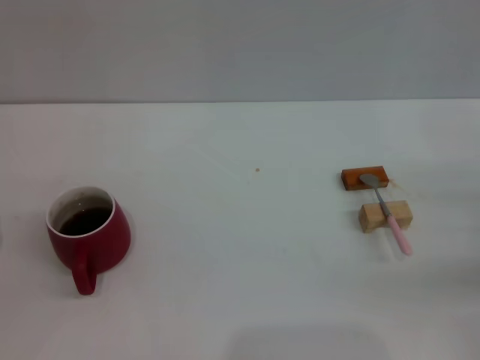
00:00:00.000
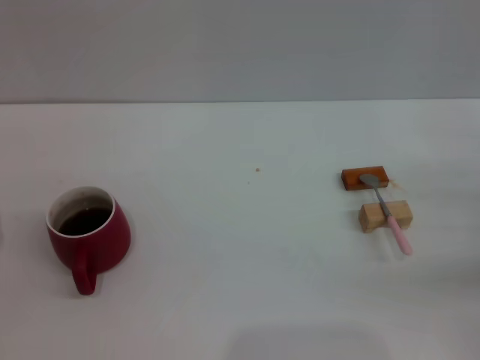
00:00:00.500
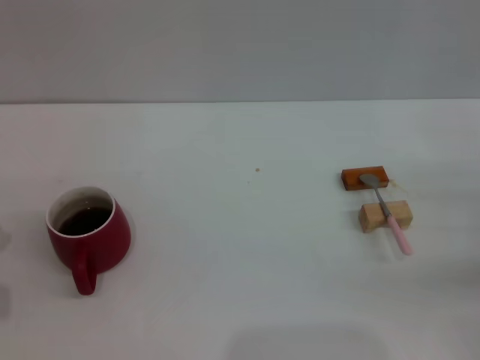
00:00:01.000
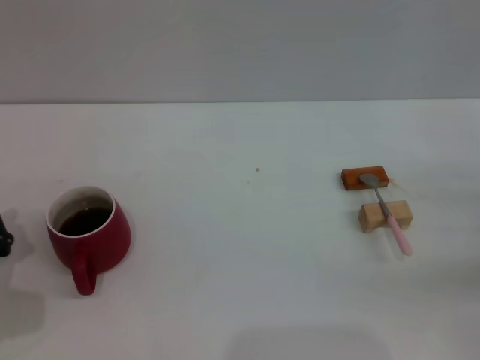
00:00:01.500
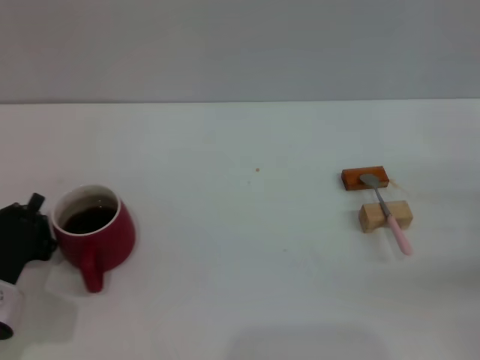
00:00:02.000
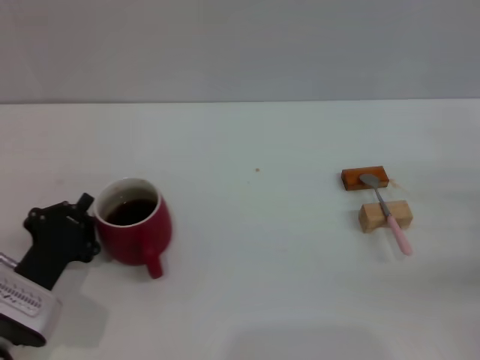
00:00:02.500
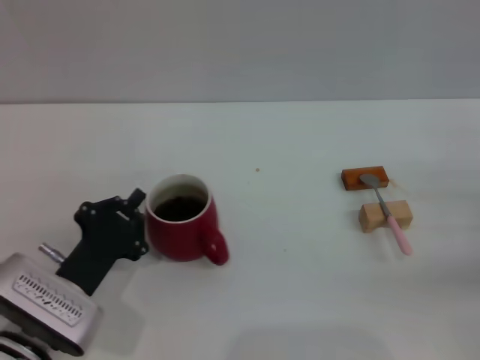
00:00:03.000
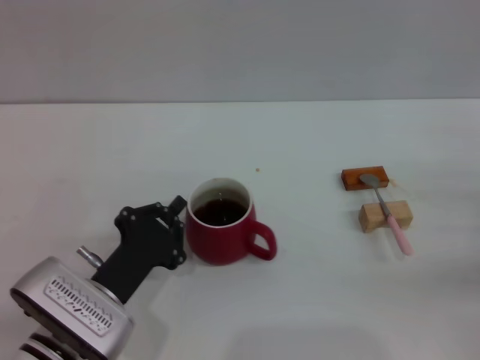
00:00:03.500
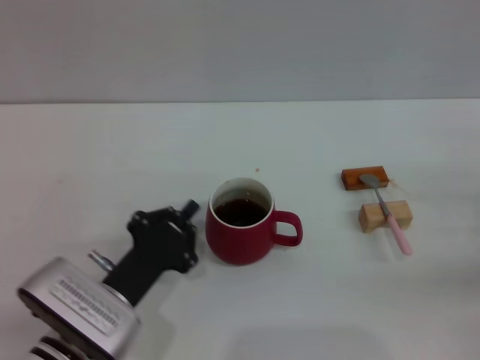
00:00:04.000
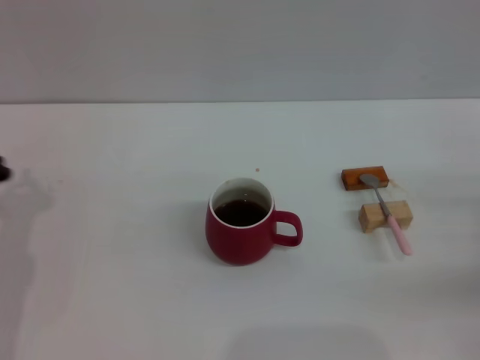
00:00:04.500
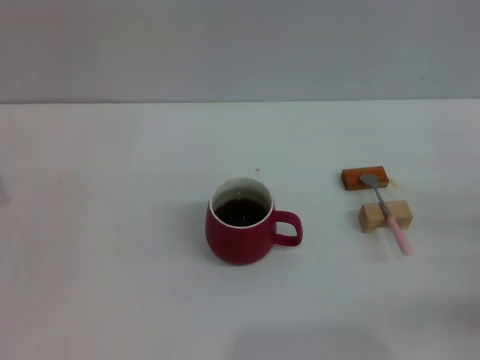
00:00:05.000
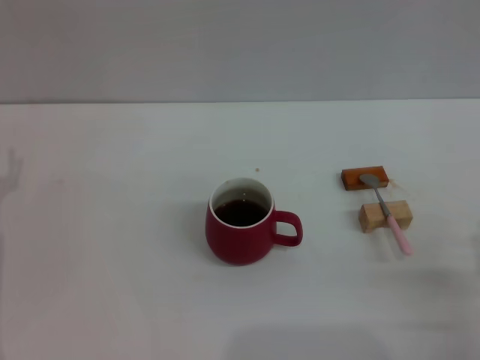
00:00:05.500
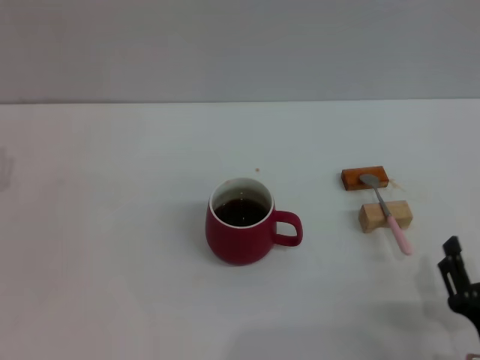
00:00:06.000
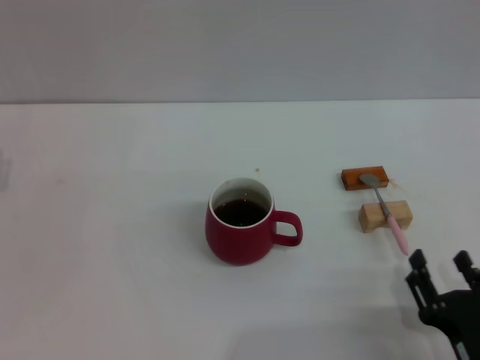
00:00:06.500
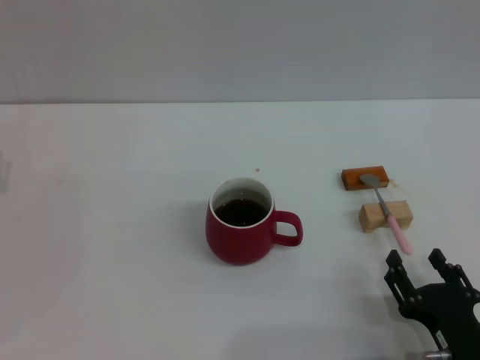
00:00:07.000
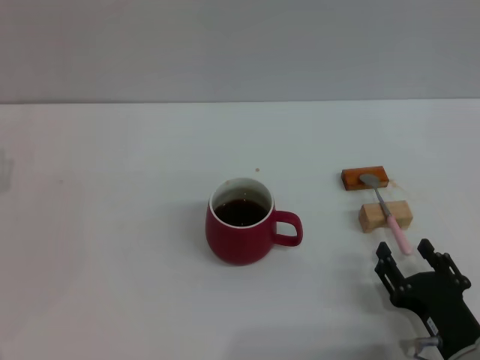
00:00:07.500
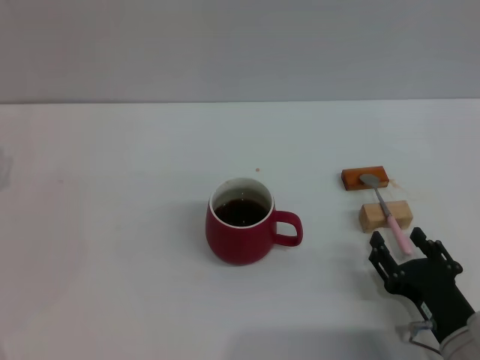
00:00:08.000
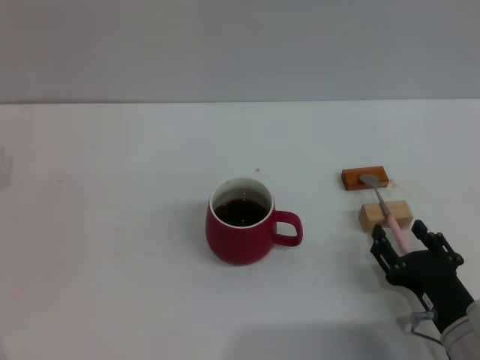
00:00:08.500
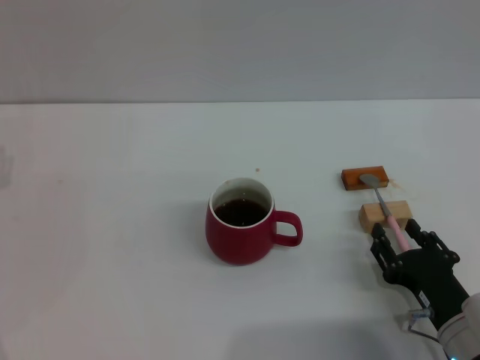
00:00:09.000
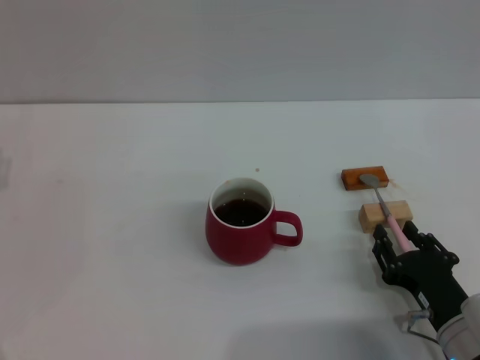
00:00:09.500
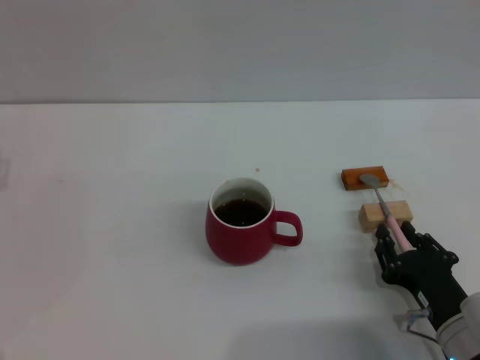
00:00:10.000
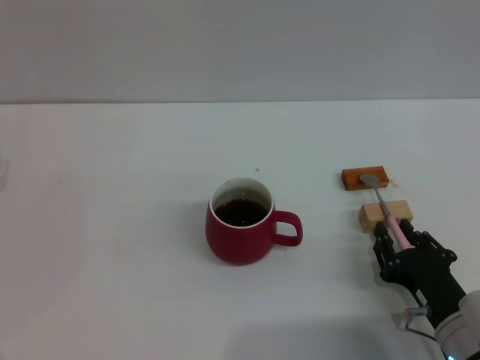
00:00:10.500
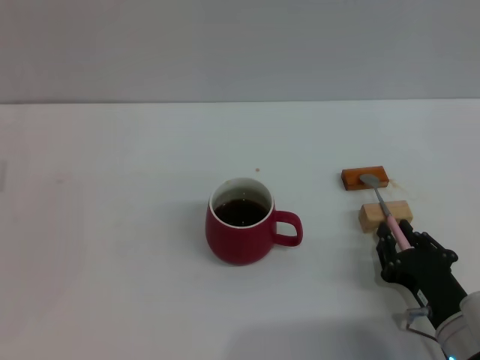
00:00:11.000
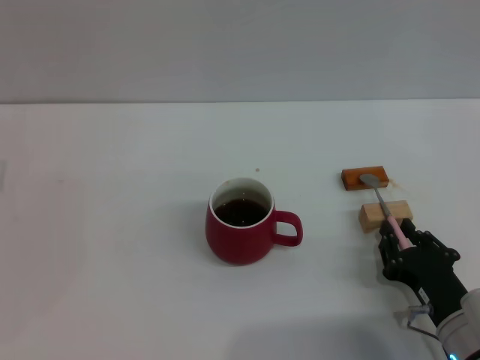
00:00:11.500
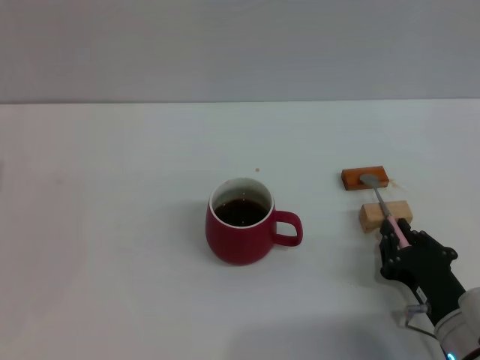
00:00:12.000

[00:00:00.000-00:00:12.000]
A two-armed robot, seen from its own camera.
Task of the whole recording: Move the red cup to the center, lift the pink spoon, stir it three times in the cup, and put the spoon into the cup.
Step, 00:00:00.000 to 00:00:04.000: Move the cup with coffee to the center of view with the left gripper.
00:00:00.000 to 00:00:02.000: The left gripper changes place by some 5 cm, and closes up.
00:00:02.000 to 00:00:04.000: The left gripper travels to the right by approximately 10 cm.
00:00:04.000 to 00:00:06.000: The right gripper shifts roughly 20 cm backward and to the left. The left gripper is displaced to the left and forward by roughly 20 cm, and opens up.
00:00:06.000 to 00:00:08.000: The right gripper goes some 5 cm forward.
00:00:08.000 to 00:00:10.000: The right gripper closes its fingers.
00:00:10.000 to 00:00:12.000: The two grippers keep their place.

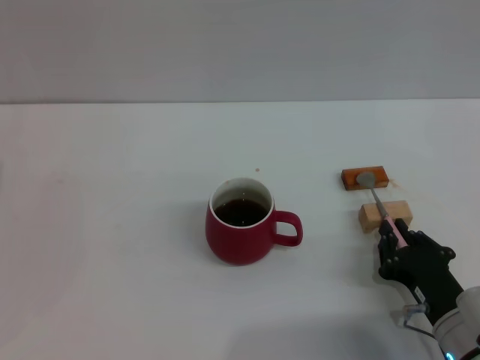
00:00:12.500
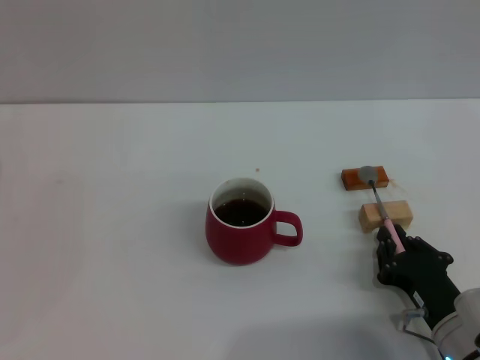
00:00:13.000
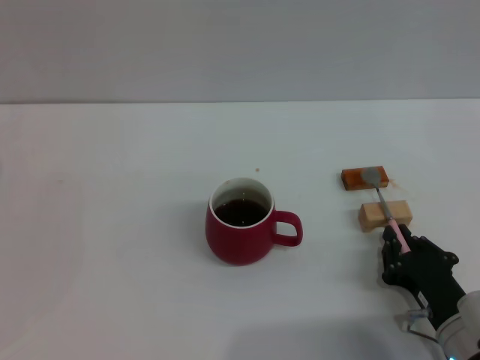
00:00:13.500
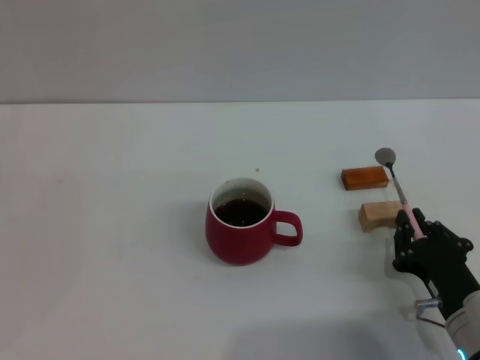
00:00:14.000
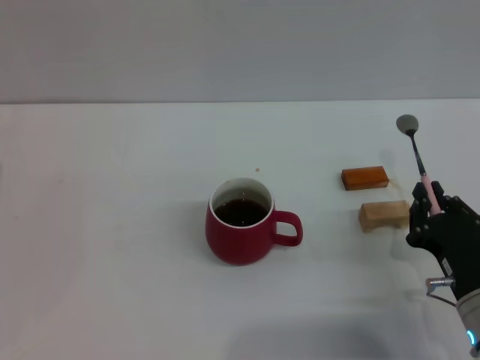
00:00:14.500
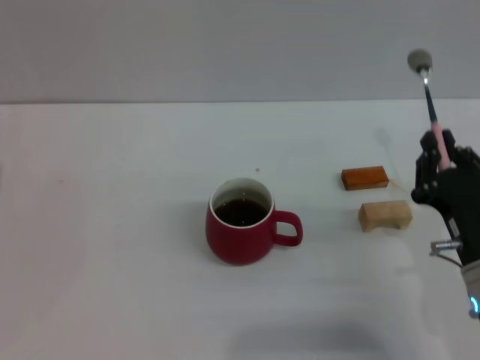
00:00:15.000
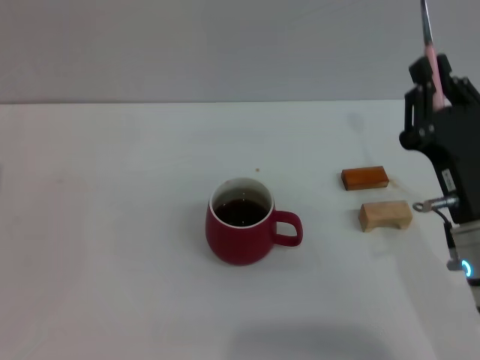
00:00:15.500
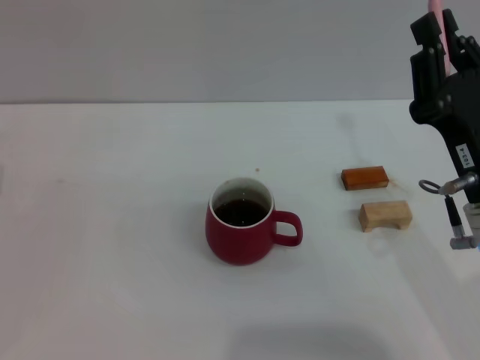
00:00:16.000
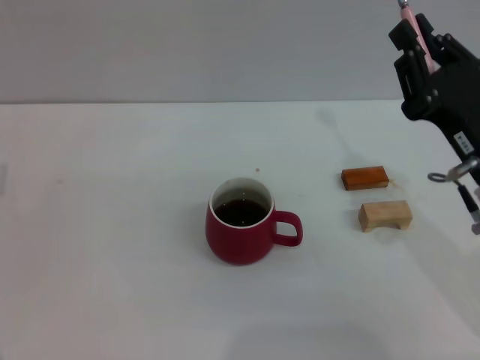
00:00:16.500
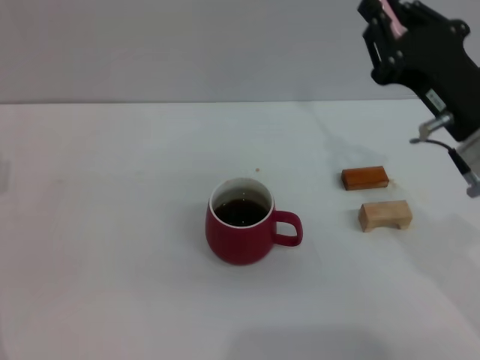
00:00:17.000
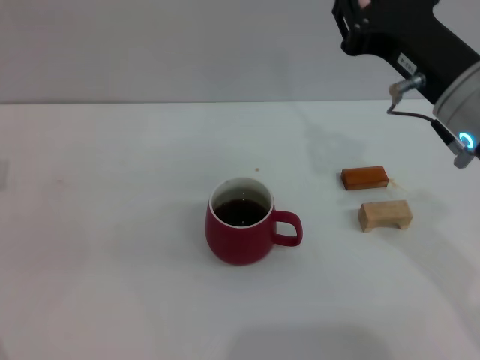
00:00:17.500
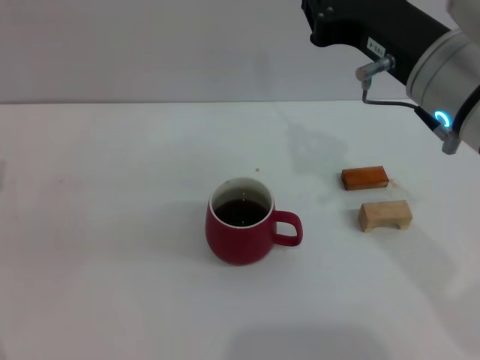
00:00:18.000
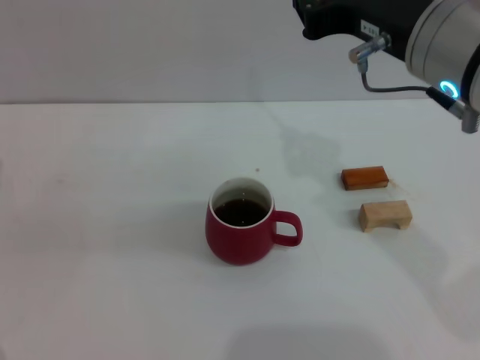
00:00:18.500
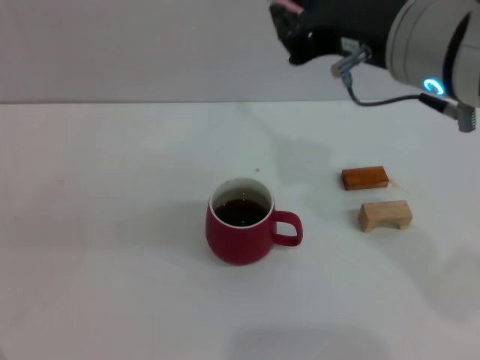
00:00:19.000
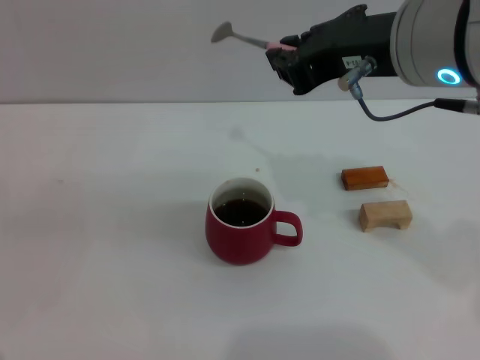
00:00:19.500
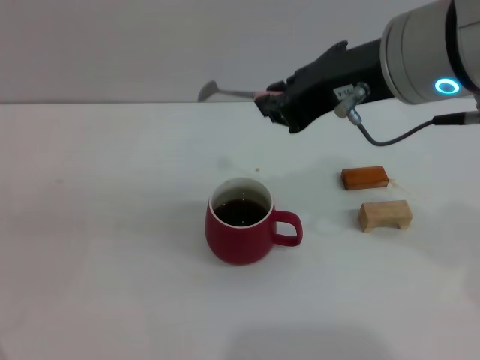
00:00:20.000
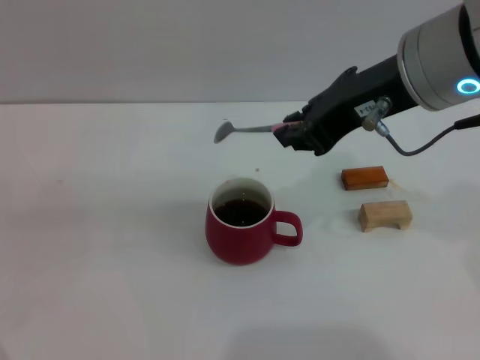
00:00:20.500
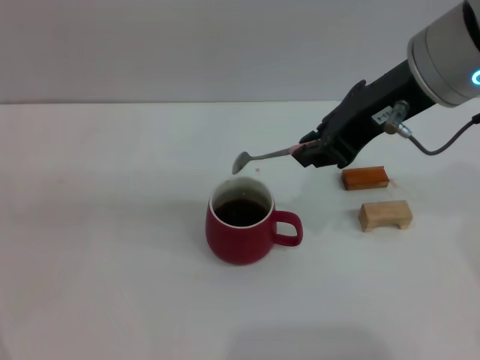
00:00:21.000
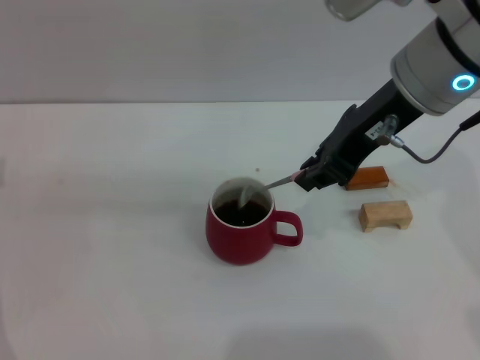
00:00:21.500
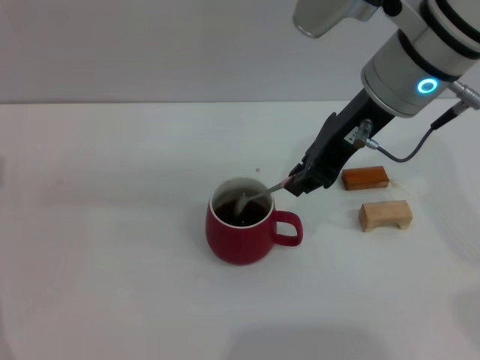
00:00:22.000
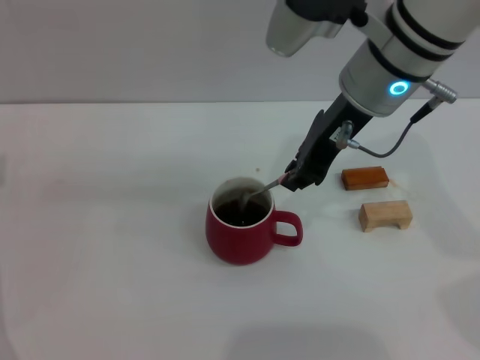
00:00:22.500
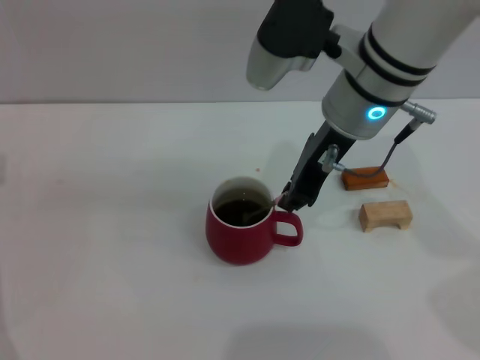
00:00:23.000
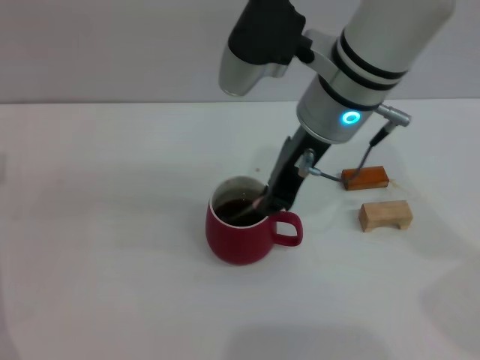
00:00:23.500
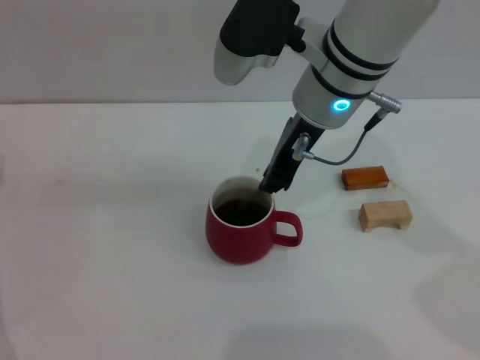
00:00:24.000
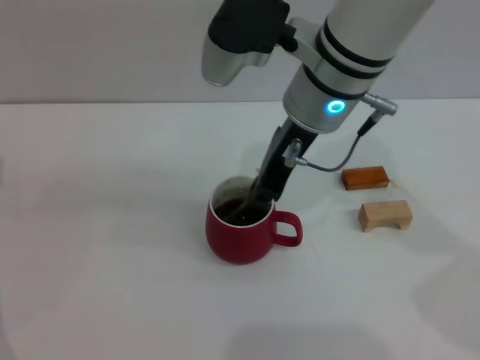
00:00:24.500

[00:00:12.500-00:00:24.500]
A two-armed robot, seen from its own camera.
Task of the whole recording: Move the red cup to the center, lift the pink spoon, stir it three times in the cup, and put the spoon into the cup.
Step, 00:00:12.500 to 00:00:15.500: Pick up the spoon with the right gripper.
00:00:12.500 to 00:00:14.500: There are only small adjustments of the grippers.
00:00:14.500 to 00:00:16.500: The right gripper goes roughly 15 cm upward and forward.
00:00:16.500 to 00:00:18.500: The right gripper heads upward and to the left, covering about 15 cm.
00:00:20.500 to 00:00:22.500: The right gripper heads forward and downward, covering about 10 cm.
00:00:22.500 to 00:00:24.500: The right gripper is displaced to the left by some 5 cm.

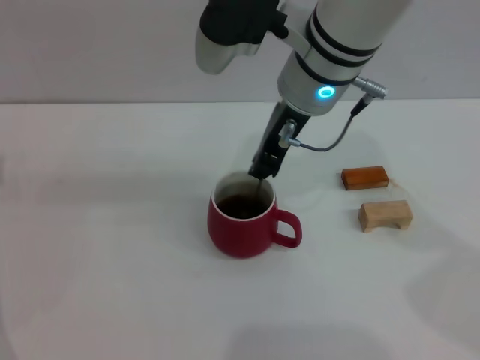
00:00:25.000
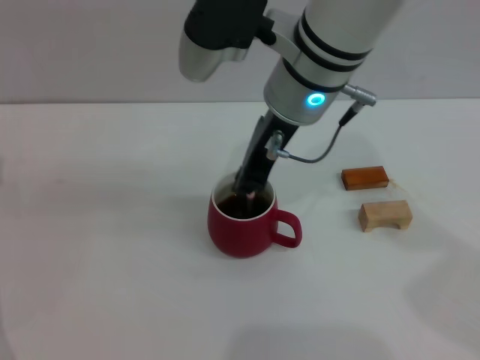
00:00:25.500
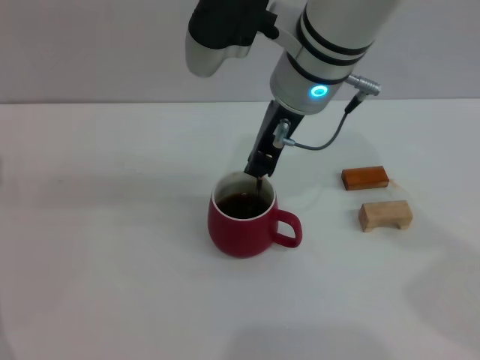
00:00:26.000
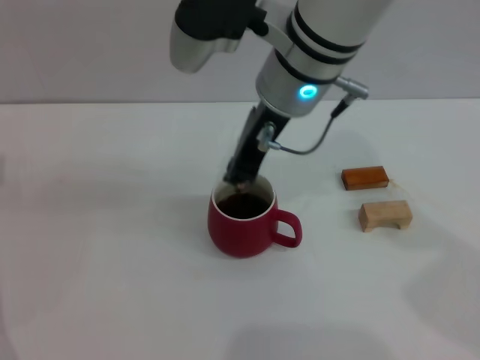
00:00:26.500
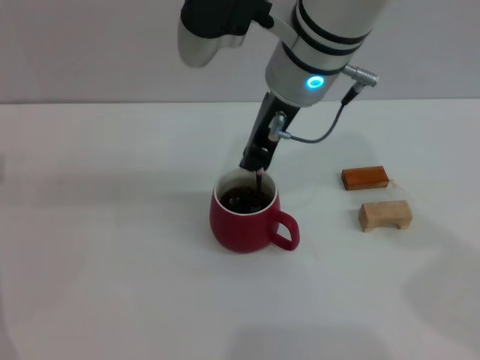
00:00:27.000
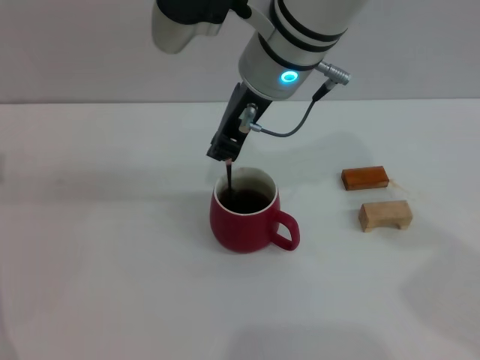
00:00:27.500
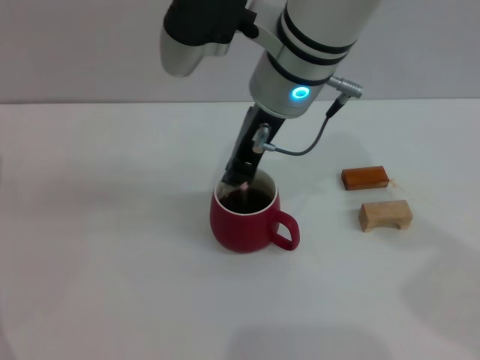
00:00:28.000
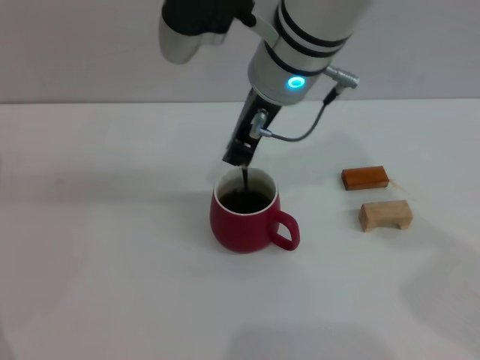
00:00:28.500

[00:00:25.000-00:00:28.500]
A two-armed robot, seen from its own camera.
Task of the whole recording: Move the red cup to the center, lift the pink spoon, stir it three times in the cup, and put the spoon into the cup.
00:00:25.000 to 00:00:28.500: The grippers stay close to where they were, moving slightly.
